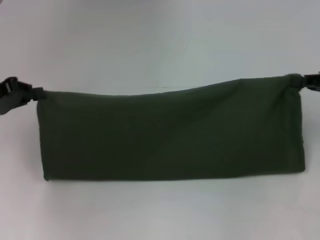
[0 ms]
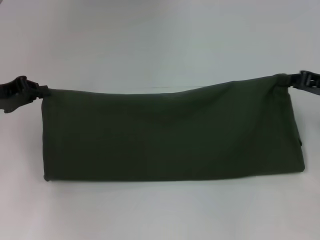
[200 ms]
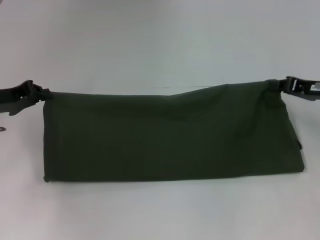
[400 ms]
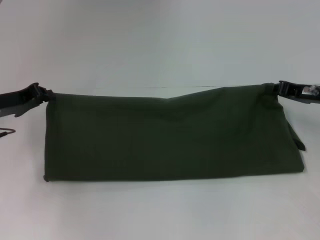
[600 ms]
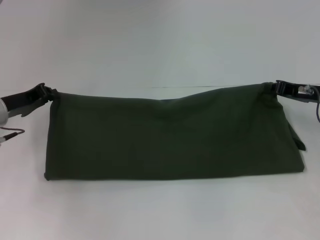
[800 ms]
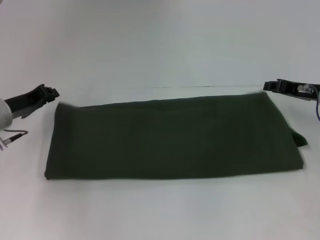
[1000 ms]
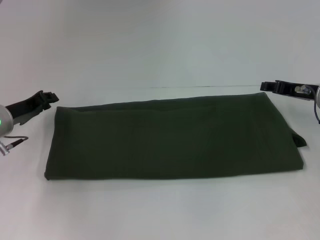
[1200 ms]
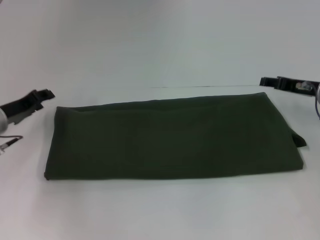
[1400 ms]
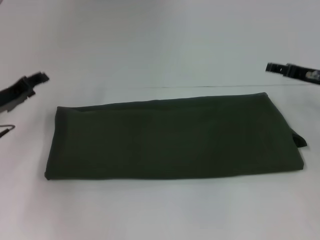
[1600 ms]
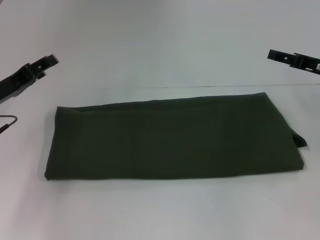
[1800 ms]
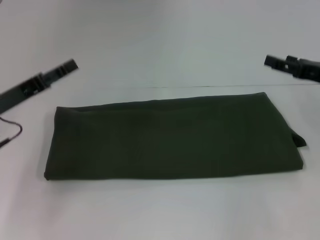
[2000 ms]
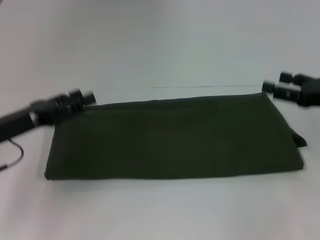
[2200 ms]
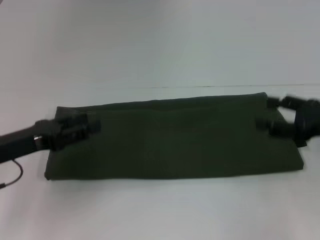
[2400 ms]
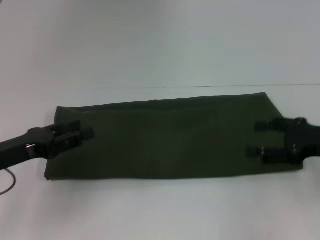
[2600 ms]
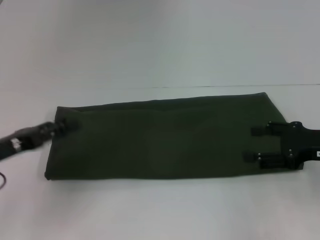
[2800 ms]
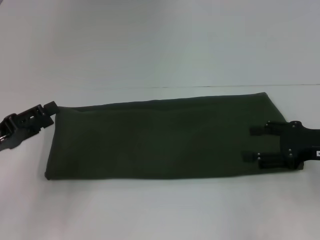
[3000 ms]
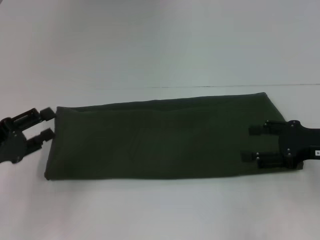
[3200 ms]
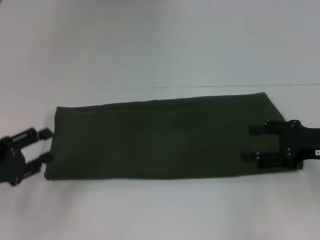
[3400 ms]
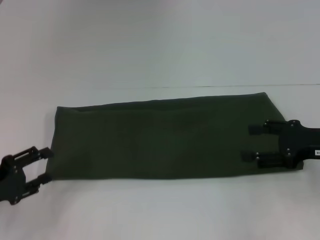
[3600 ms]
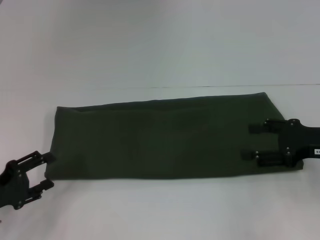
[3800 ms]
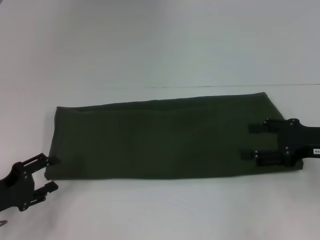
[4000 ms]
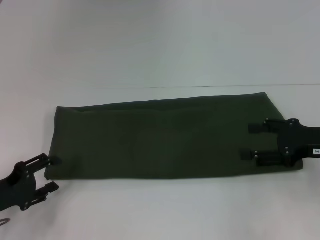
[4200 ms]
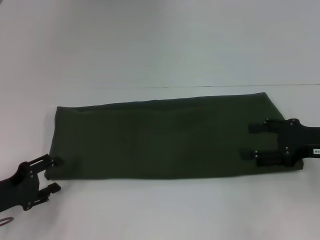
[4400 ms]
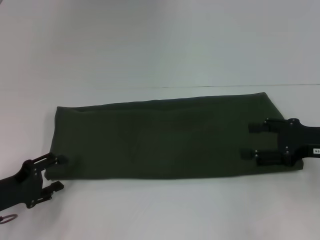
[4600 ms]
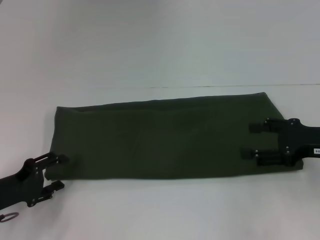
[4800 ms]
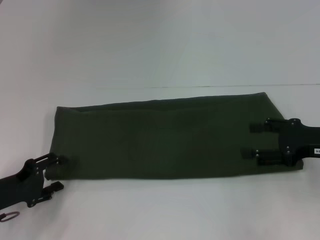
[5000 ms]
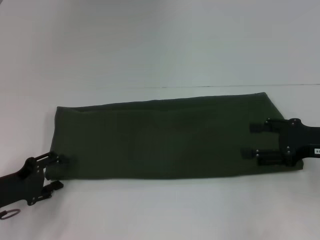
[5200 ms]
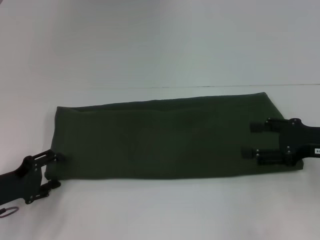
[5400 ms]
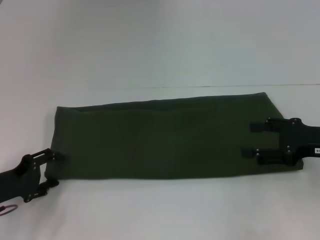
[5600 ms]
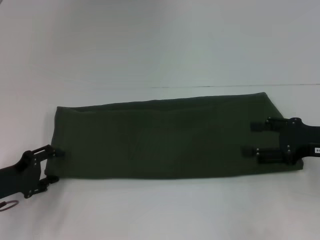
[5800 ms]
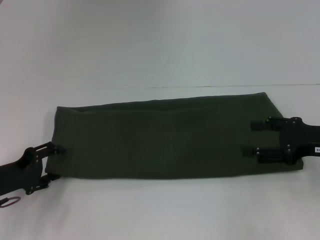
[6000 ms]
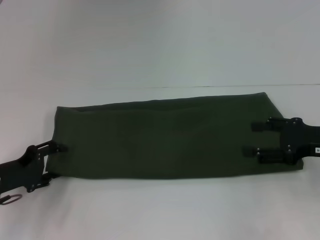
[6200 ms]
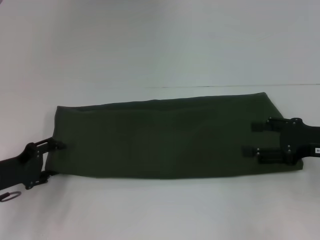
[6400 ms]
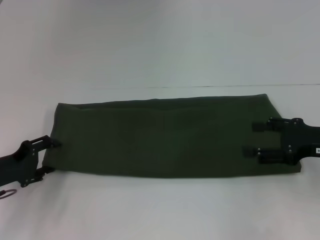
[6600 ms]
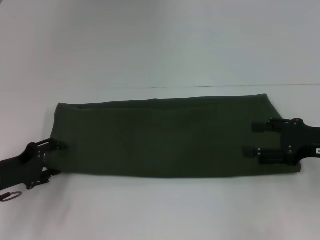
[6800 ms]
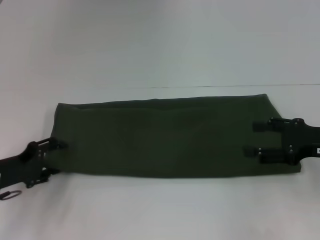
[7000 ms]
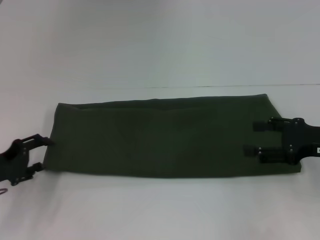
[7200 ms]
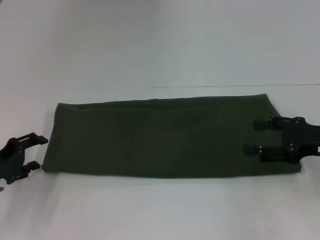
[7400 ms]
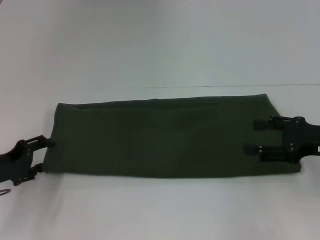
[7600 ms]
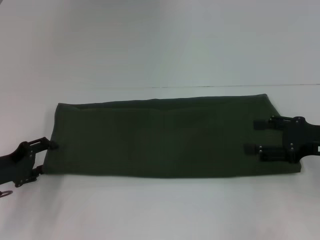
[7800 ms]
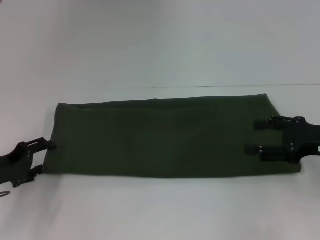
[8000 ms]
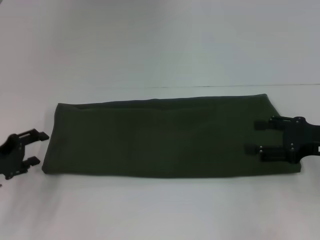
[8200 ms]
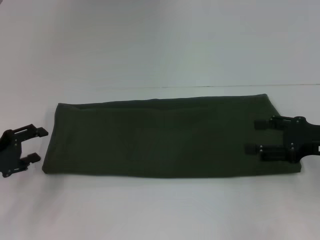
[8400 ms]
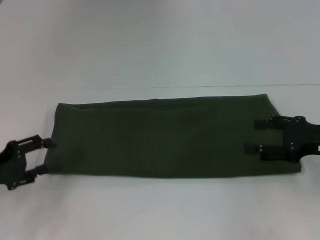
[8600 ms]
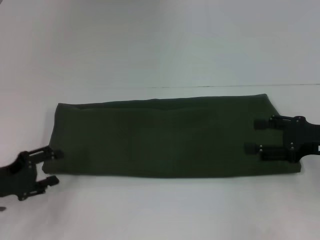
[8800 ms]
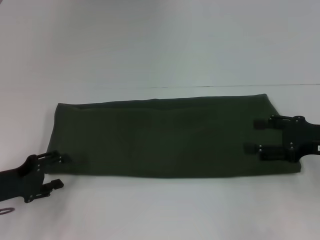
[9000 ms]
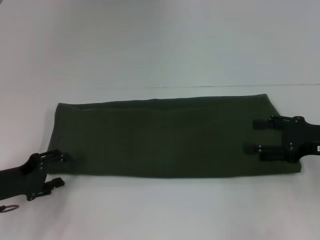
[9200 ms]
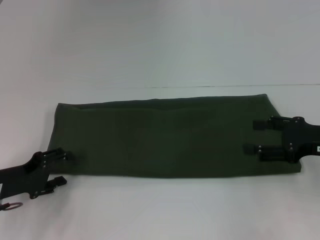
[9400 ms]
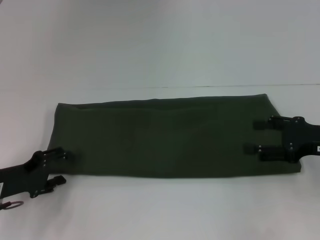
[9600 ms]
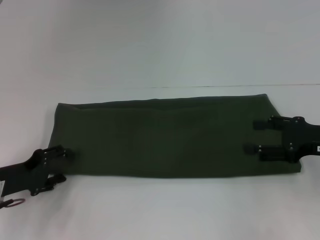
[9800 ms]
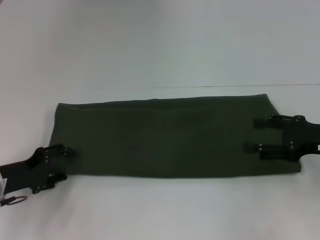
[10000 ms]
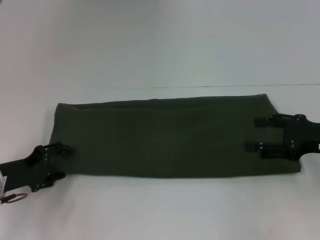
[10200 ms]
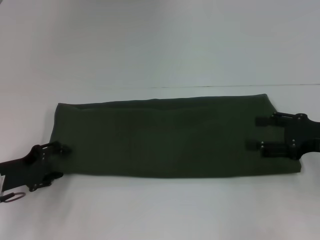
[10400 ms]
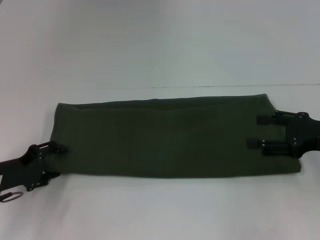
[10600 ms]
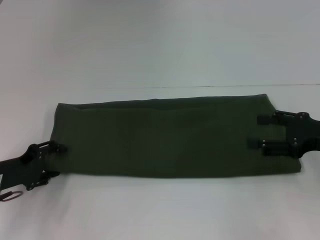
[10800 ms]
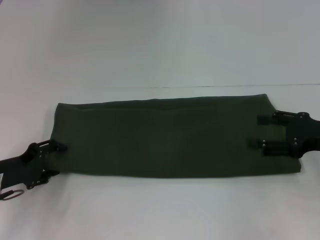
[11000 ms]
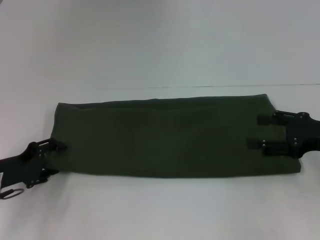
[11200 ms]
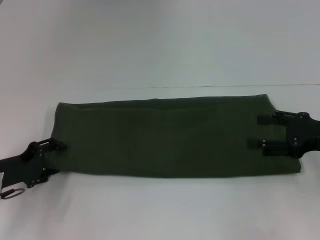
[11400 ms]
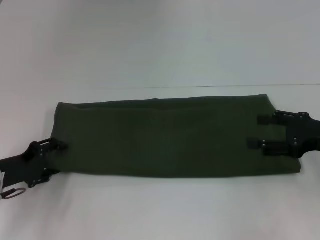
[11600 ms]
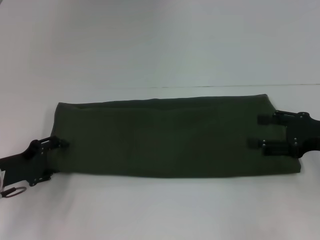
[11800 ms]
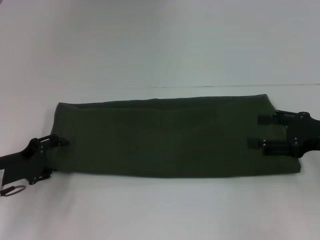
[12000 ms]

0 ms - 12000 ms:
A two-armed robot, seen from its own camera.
Step, 0 ms - 1200 ms: Fold the clothes with your right hand.
0 ms - 1600 ms: The left gripper travels downward by some 5 cm, and opens. Meanwhile the right gripper moves forward, roughly 5 cm, and opens.
1600 ms - 3000 ms: Both grippers move backward, roughly 10 cm.
3000 ms - 4400 ms: The left gripper moves downward, some 5 cm.
4400 ms - 7600 ms: The grippers make only small movements.
7600 ms - 10400 ms: There are only small adjustments of the grippers.
10400 ms - 12000 ms: Both grippers stay about where they are.

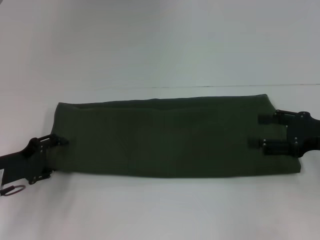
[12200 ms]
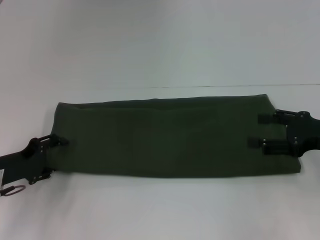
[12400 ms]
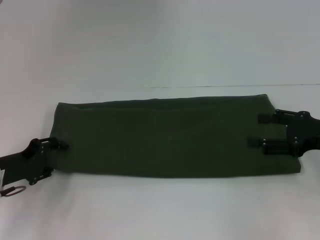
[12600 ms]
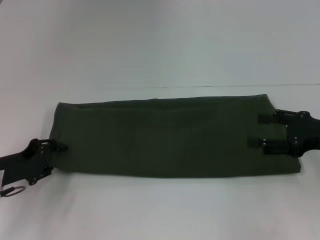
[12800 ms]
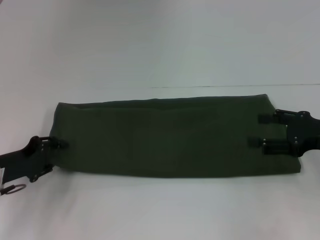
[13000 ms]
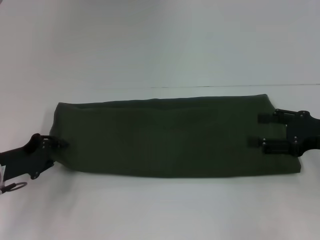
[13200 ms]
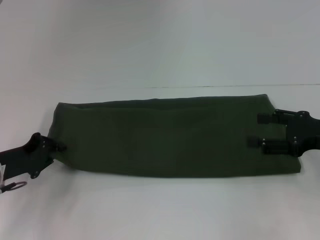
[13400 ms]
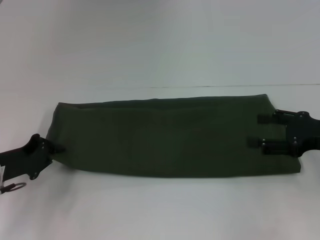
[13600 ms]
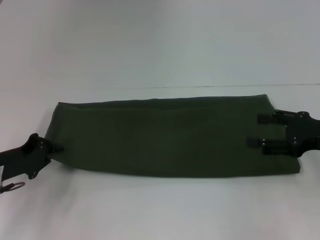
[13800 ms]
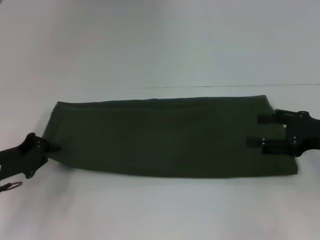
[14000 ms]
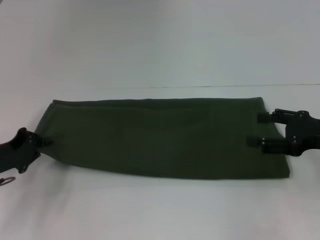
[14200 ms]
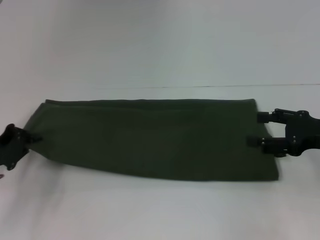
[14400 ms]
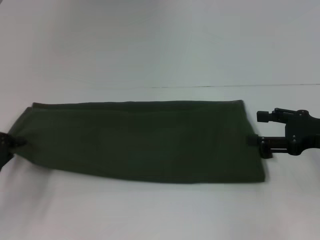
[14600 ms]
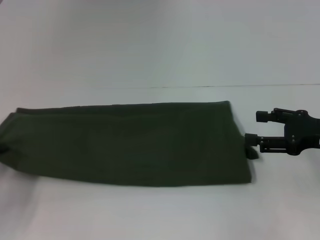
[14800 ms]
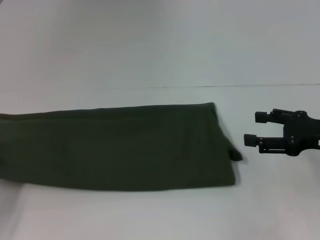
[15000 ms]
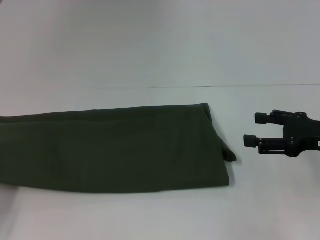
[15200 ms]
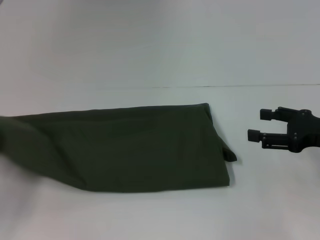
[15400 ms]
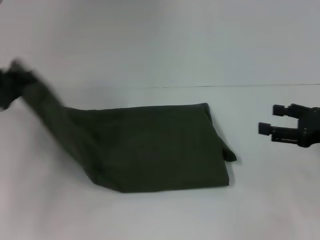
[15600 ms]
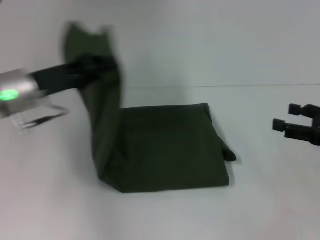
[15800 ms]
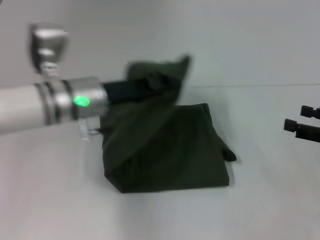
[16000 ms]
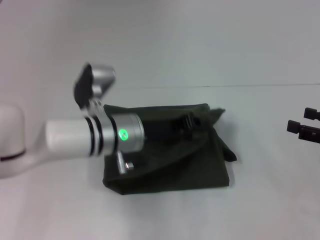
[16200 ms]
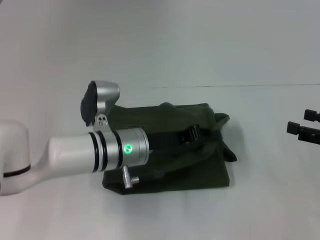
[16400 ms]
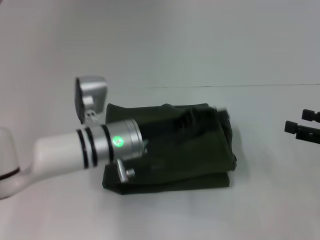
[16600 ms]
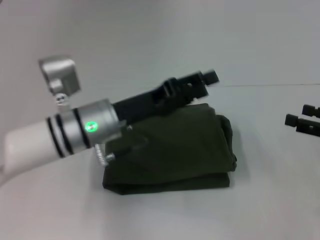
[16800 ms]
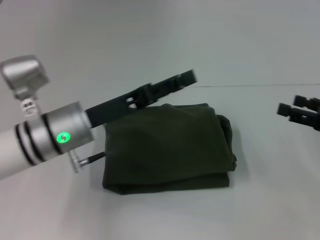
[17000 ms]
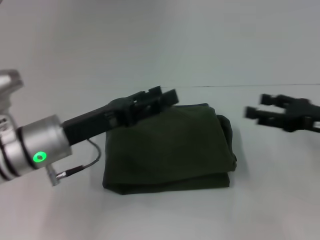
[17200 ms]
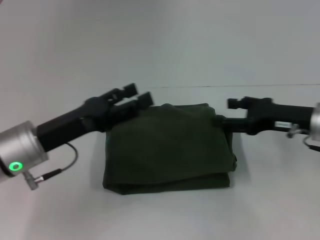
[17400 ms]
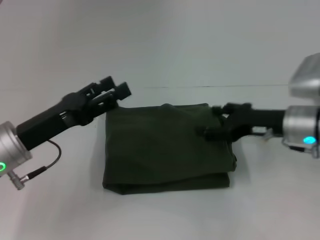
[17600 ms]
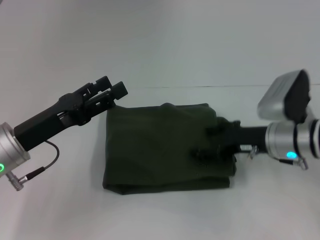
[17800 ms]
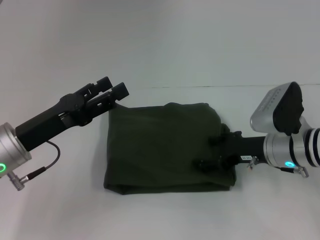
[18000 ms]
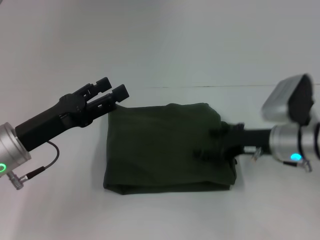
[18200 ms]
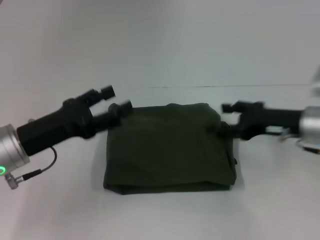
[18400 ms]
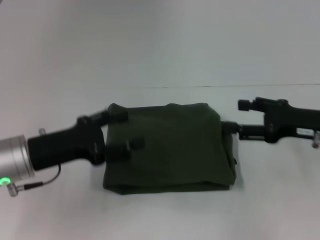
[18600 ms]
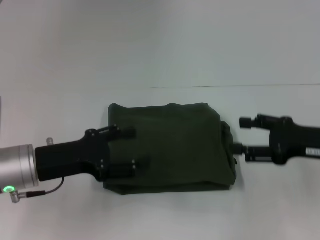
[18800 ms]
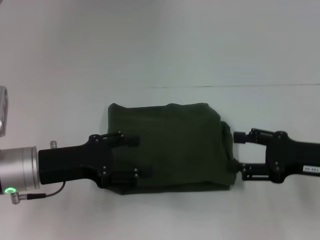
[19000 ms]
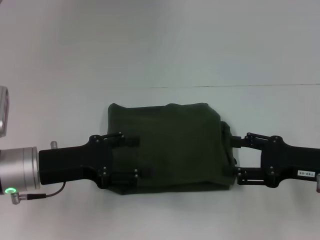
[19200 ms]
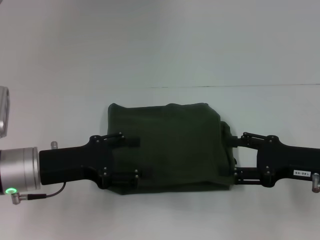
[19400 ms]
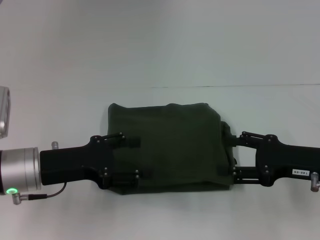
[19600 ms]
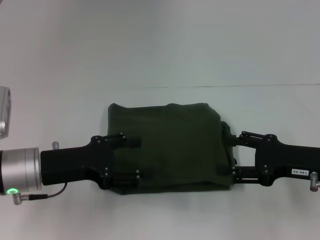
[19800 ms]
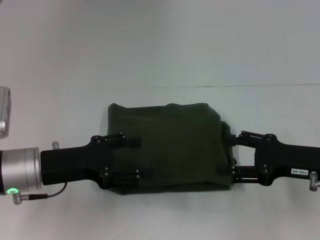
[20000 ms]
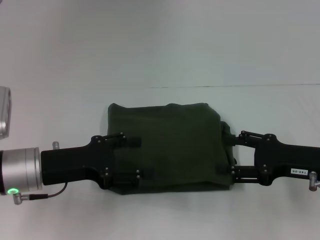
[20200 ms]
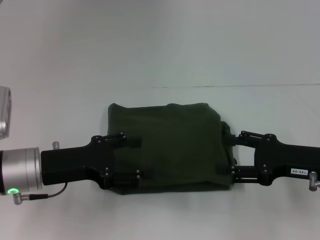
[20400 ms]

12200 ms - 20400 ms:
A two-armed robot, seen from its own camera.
Step, 12200 ms - 16800 ms: Fold the clothes with your left hand.
12200 ms - 13800 ms: The left gripper closes its fingers.
13800 ms - 15400 ms: The left gripper shifts about 10 cm to the left.
15400 ms - 17200 ms: The left gripper goes roughly 20 cm to the right, and opens up.
17200 ms - 18800 ms: The right gripper reaches about 10 cm to the left, then returns. The left gripper changes place by some 5 cm.
18800 ms - 20400 ms: There are only small adjustments of the grippers.
